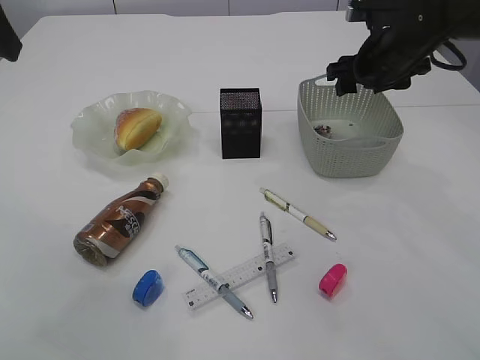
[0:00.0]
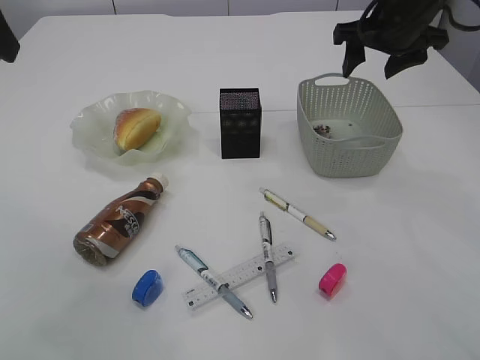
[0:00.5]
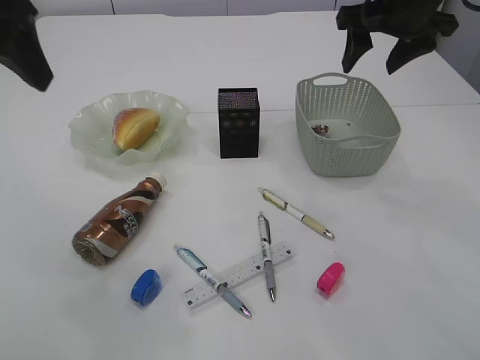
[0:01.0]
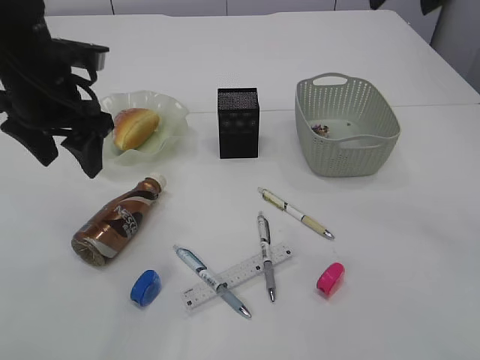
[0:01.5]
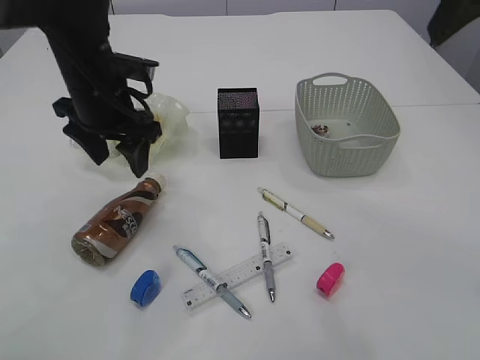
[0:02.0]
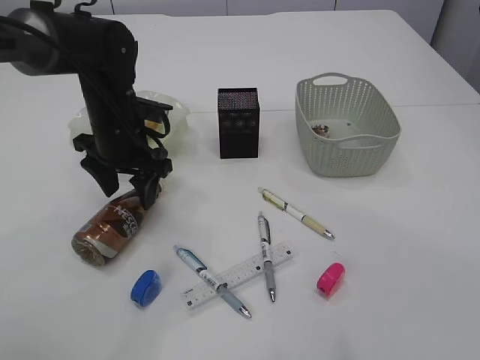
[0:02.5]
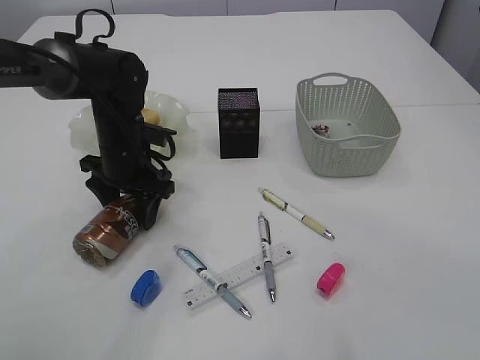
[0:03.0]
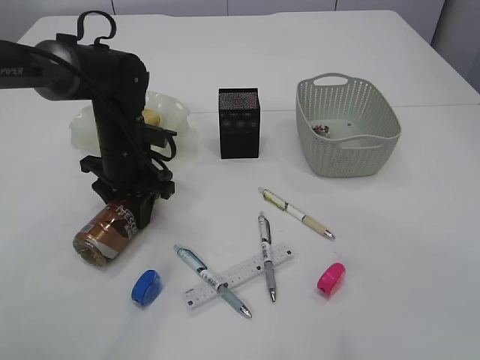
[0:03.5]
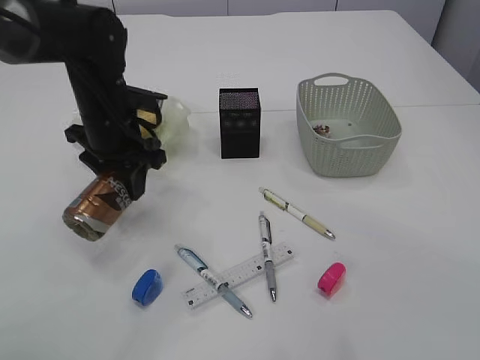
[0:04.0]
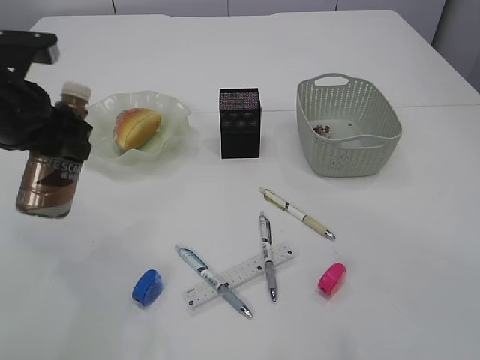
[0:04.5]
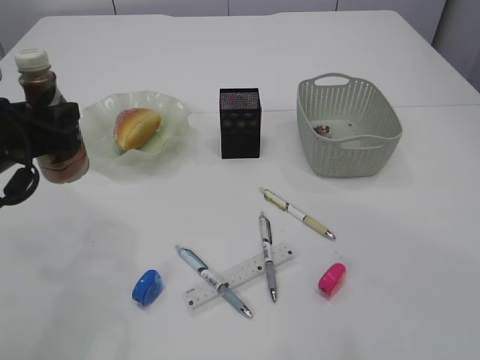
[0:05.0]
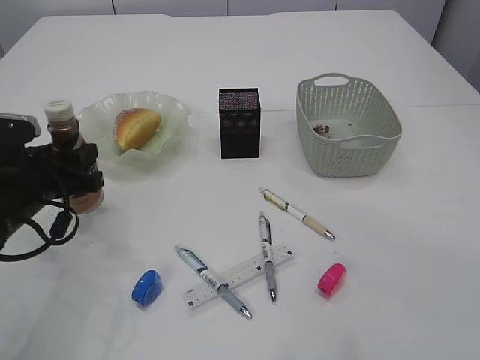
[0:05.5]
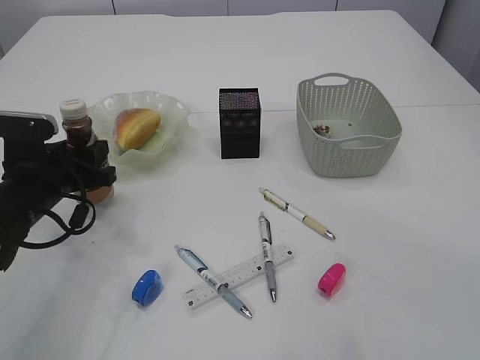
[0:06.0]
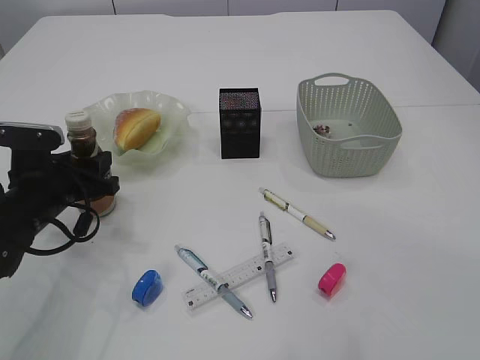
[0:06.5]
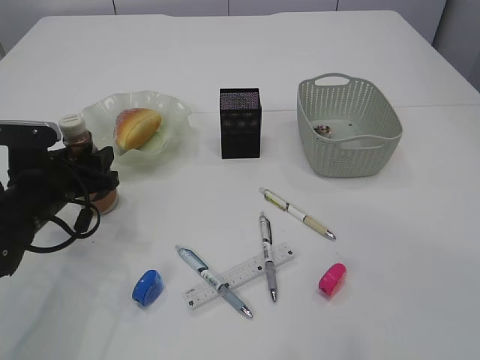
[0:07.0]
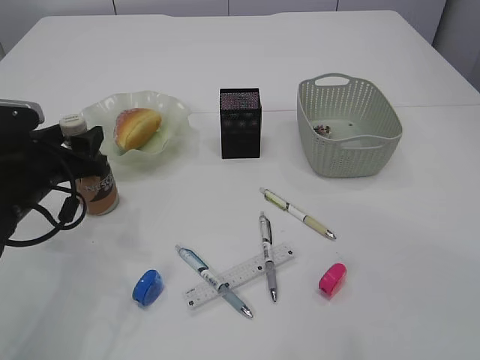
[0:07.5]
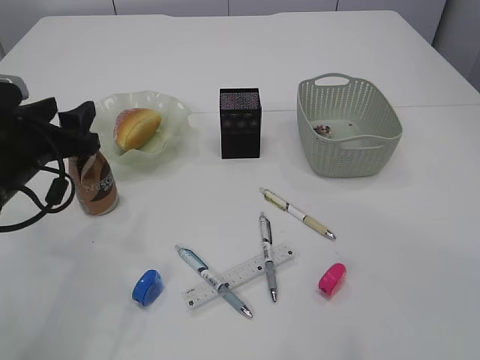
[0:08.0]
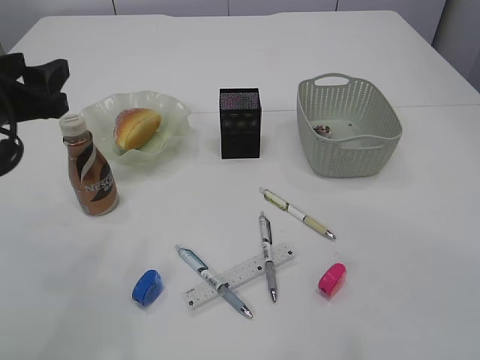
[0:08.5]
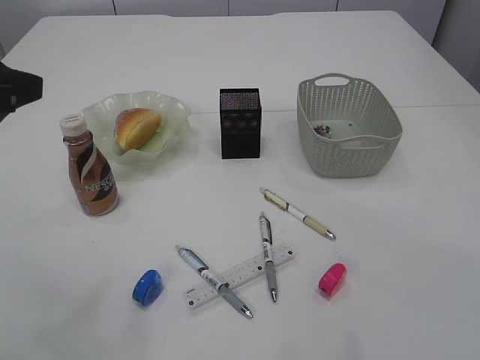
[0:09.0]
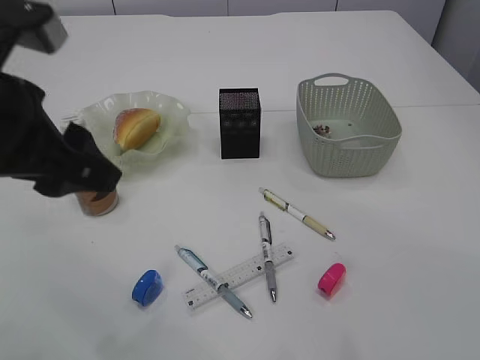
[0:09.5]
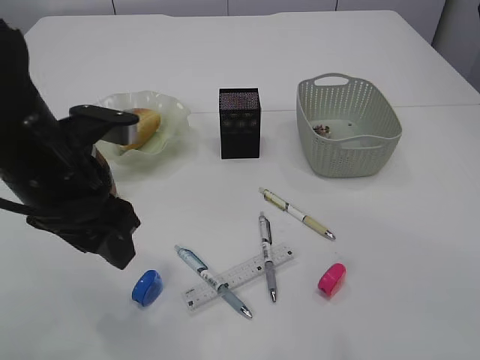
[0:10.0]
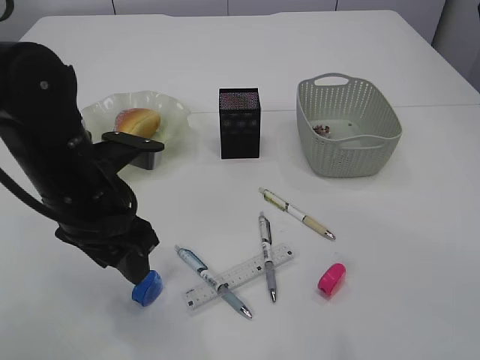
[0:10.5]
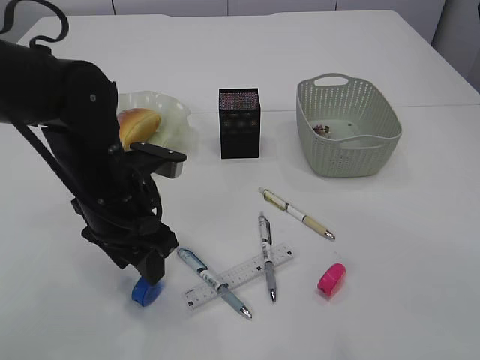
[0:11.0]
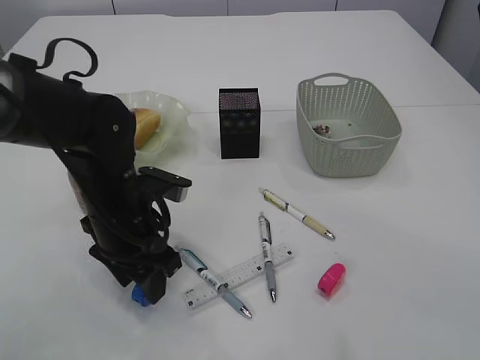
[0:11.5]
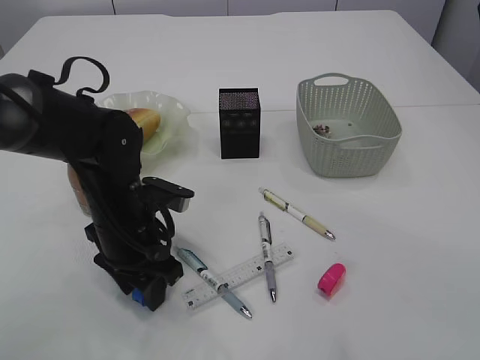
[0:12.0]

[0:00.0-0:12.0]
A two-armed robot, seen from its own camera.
Step, 0:01.0 to 0:04.0: Pick up the bottle with the left arm.
Step, 0:04.5 to 0:08.0: Place the bottle.
0:00.0 to 0:02.0: The right gripper goes approximately 25 cm backward and upward; the left gripper shifts some 25 cm downward, forward and to the right.
0:02.0 to 0:04.0: The left gripper closes its fingers; the right gripper moves roughly 5 cm.
0:04.0 to 0:06.0: The left gripper travels to the left, backward and downward by about 15 cm.
0:06.0 to 0:08.0: The grippers make only small movements.
0:08.0 to 0:10.0: The left gripper is displaced to the right, backward and upward by roughly 15 cm.
0:10.0 to 0:12.0: The left gripper moves downward, approximately 10 cm.

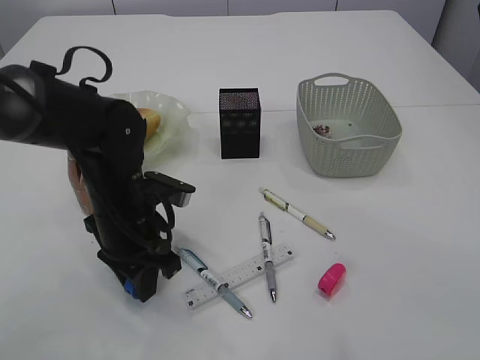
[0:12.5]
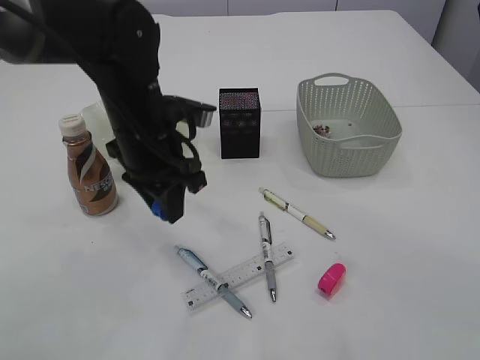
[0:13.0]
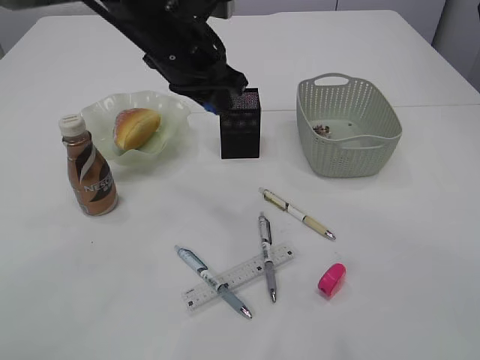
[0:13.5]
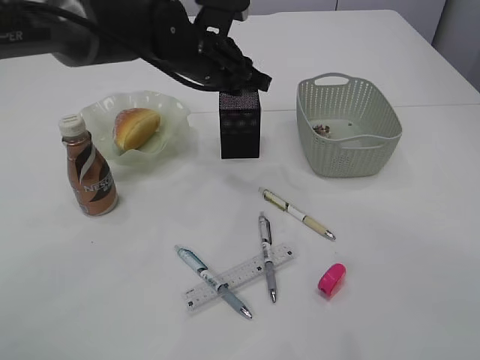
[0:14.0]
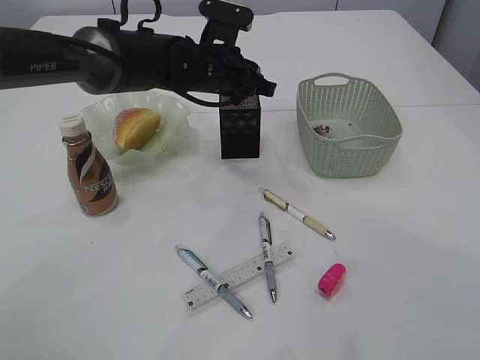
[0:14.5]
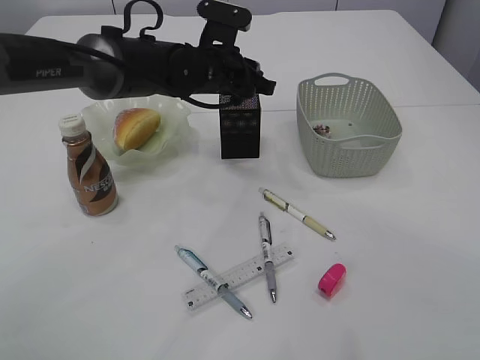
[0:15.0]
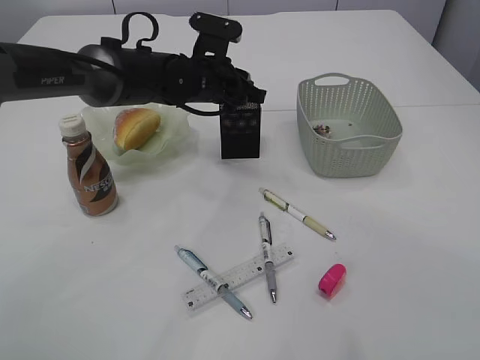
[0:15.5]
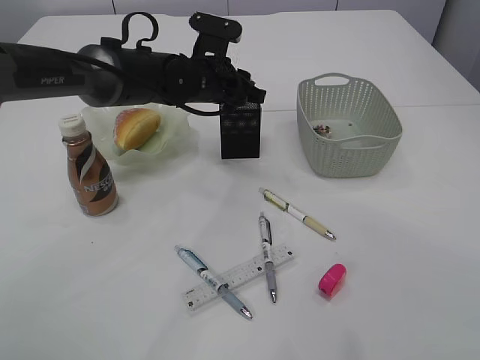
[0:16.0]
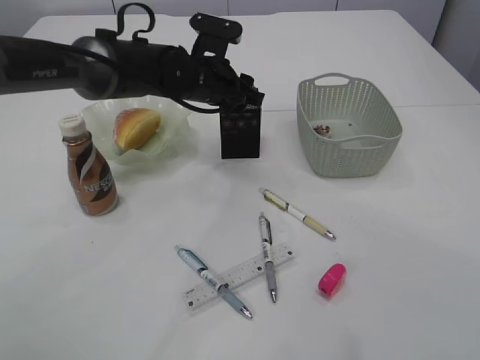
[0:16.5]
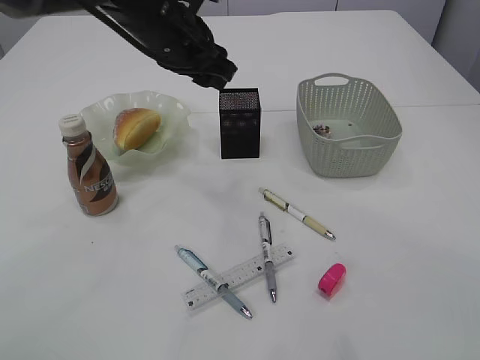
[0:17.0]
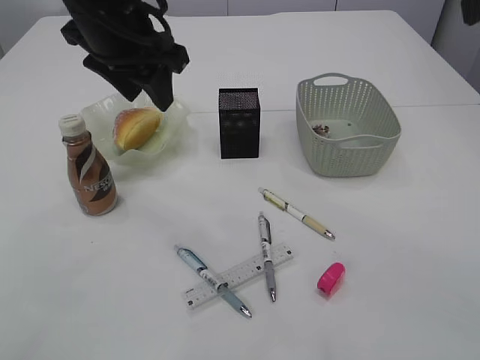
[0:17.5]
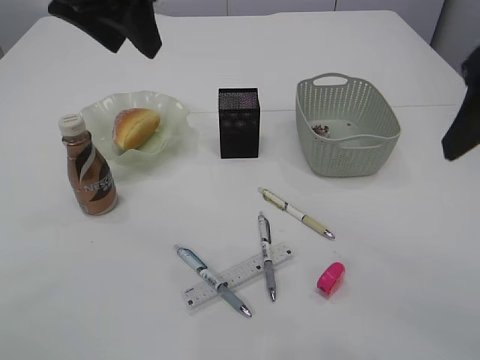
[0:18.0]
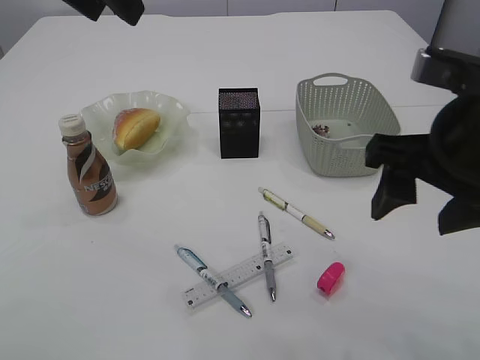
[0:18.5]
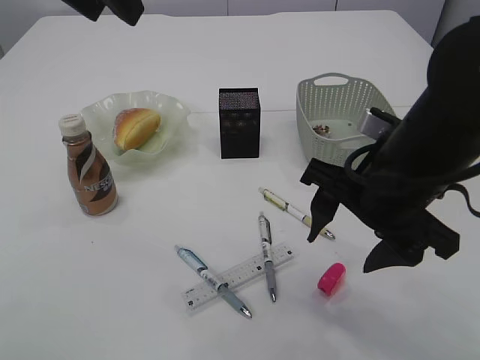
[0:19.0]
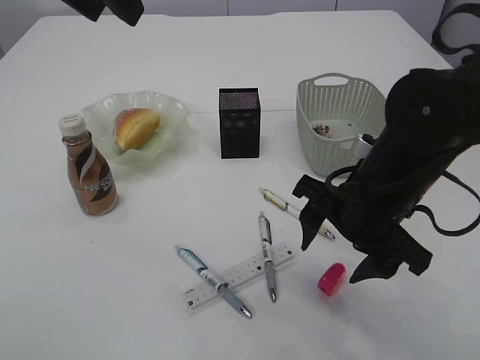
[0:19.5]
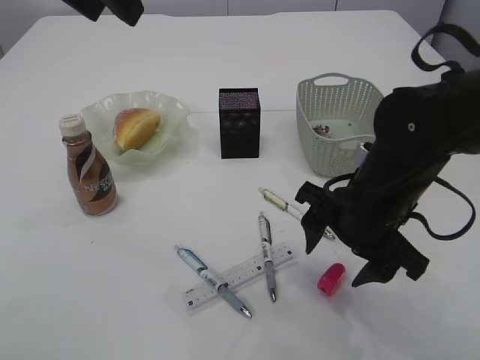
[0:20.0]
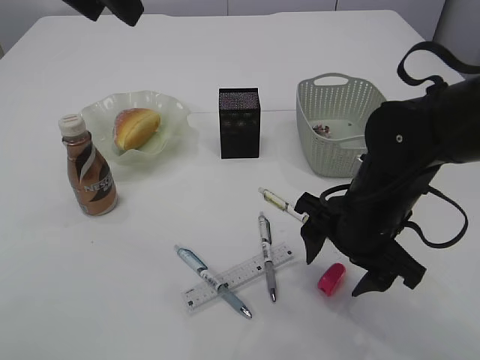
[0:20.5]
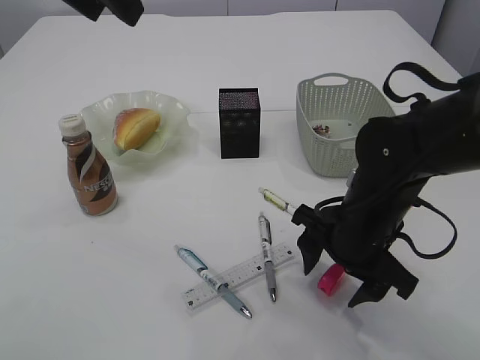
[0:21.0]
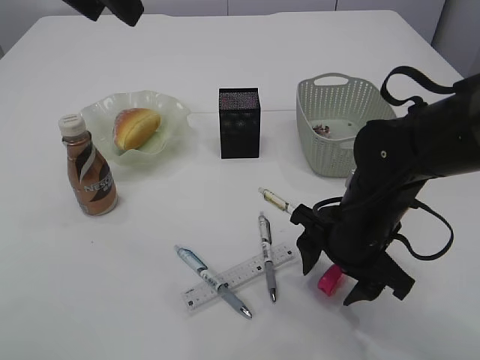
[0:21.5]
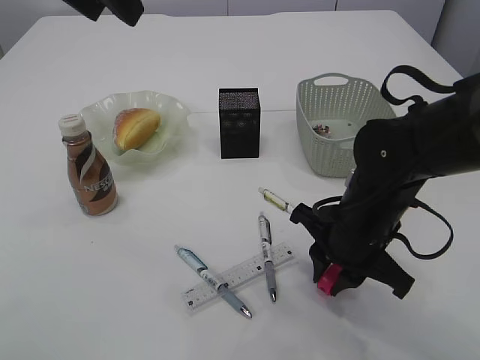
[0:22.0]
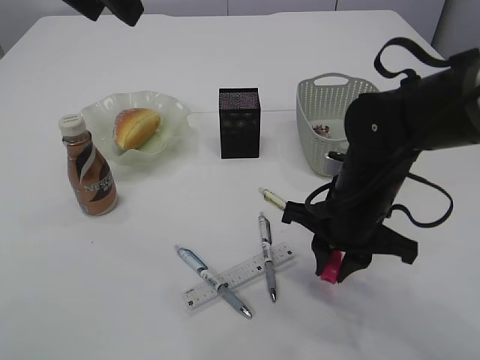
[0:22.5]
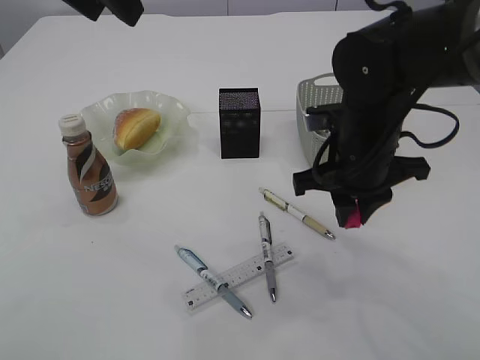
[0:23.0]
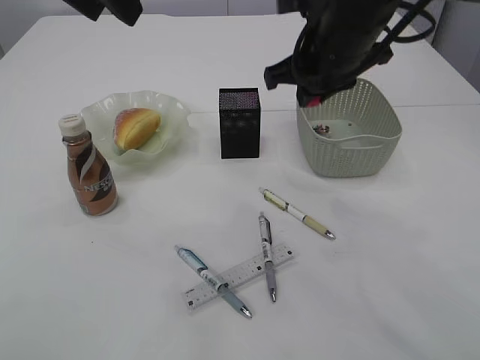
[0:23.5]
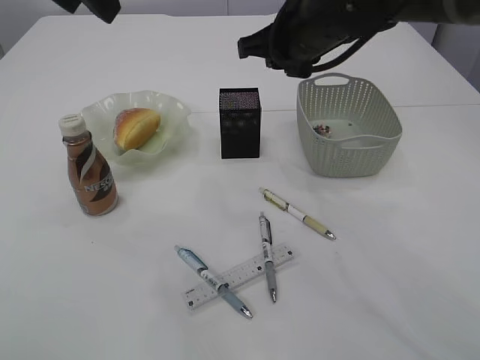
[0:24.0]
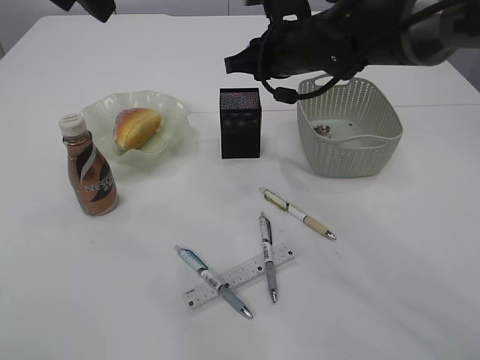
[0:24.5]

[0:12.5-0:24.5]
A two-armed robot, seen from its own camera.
Step, 0:13.0 to 0:17.0: Place the blue pencil sharpener into the pen holder.
Step, 0:17.5 to 0:22.5: Pick up the red pencil sharpener.
0:12.5 to 0:14.5: The left gripper travels forward, to the right and upward by approximately 20 cm.
0:14.5 to 0:16.5: The left gripper opens its fingers.
0:16.5 to 0:18.5: The left gripper shifts roughly 30 cm upward and backward; the right gripper shifts roughly 15 cm downward and to the left.
0:18.5 to 0:20.5: The right gripper goes roughly 15 cm downward and forward.
0:20.5 to 0:22.5: The right gripper closes.
0:22.5 to 0:24.5: The right gripper goes roughly 20 cm forward and upward.

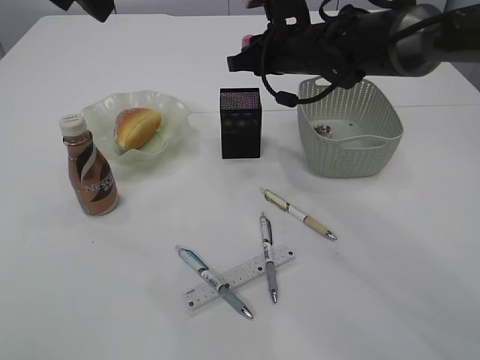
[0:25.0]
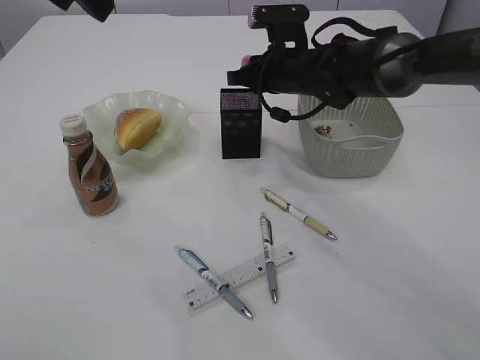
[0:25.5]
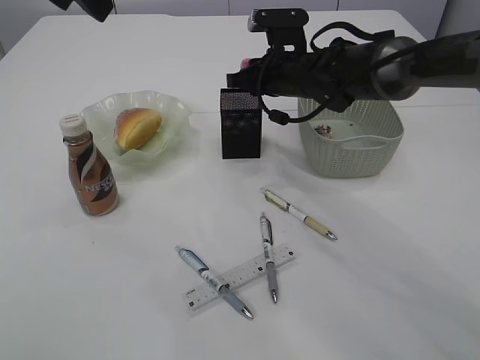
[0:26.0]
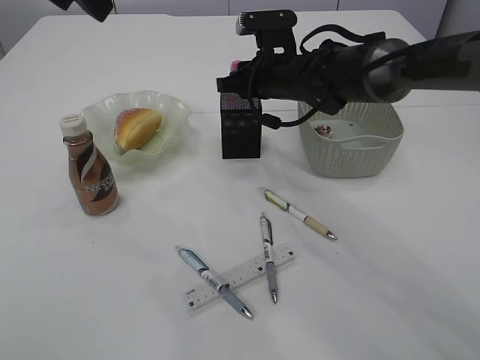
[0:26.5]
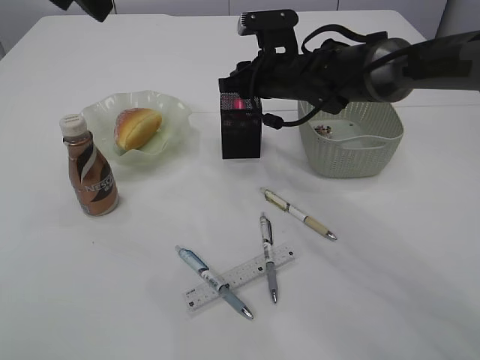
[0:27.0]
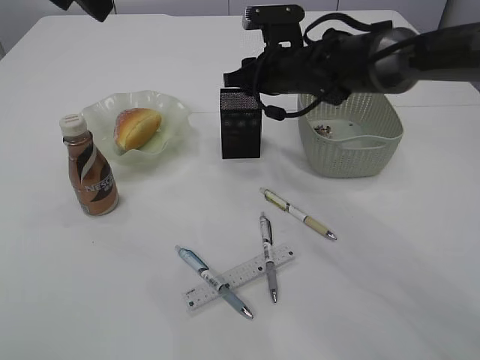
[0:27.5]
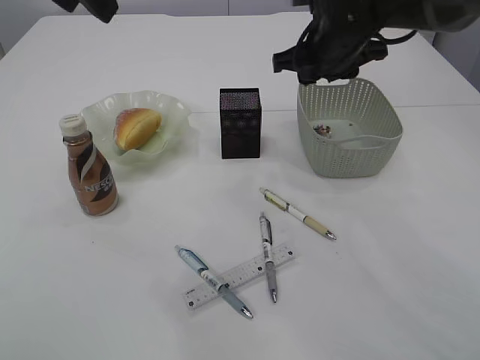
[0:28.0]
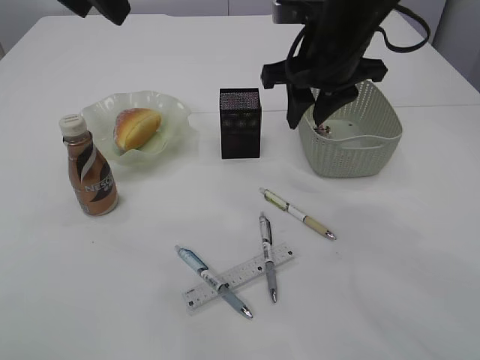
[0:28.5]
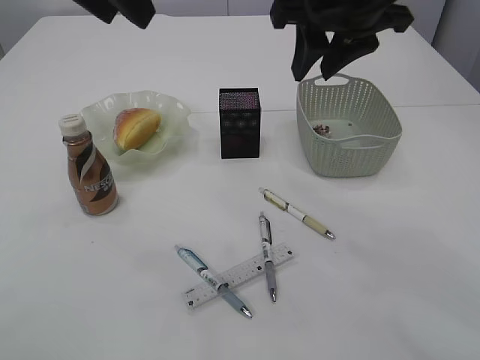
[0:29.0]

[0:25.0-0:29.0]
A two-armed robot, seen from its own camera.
Step, 0:25.0 to 0:27.5: Place the red pencil sharpener into the pen holder.
0:25.0 to 0:27.0: The grippers stay close to where they were, moving slightly.
0:27.0 to 0:29.0: The right gripper goes roughly 20 cm upward and backward.
